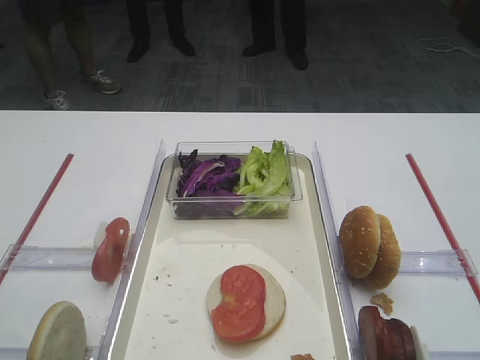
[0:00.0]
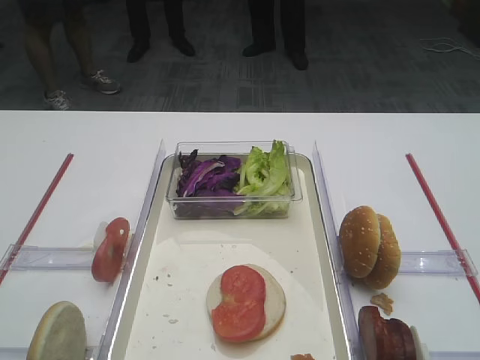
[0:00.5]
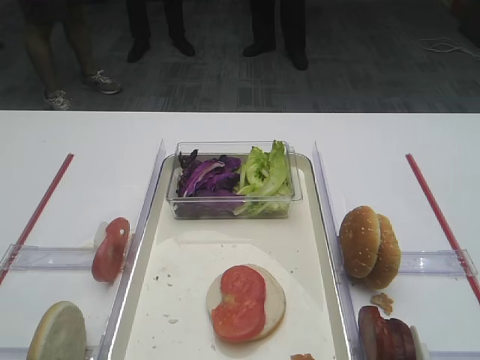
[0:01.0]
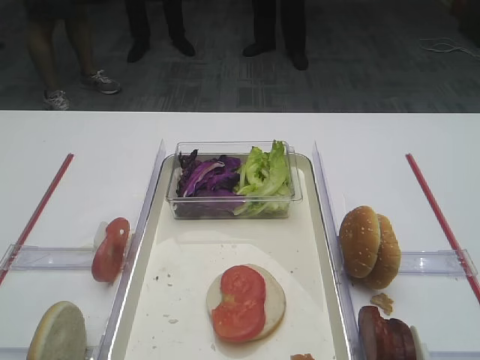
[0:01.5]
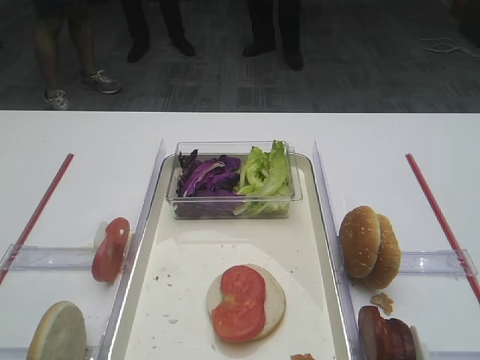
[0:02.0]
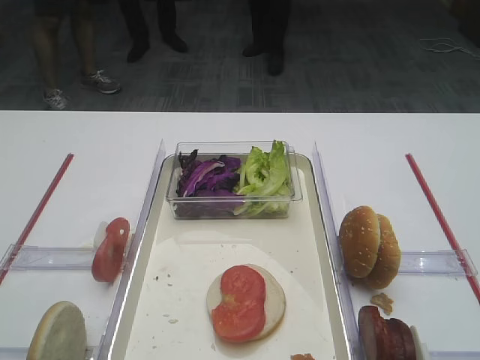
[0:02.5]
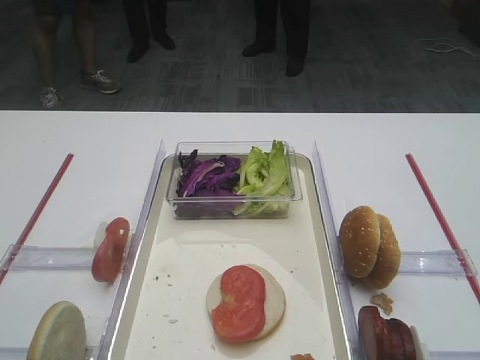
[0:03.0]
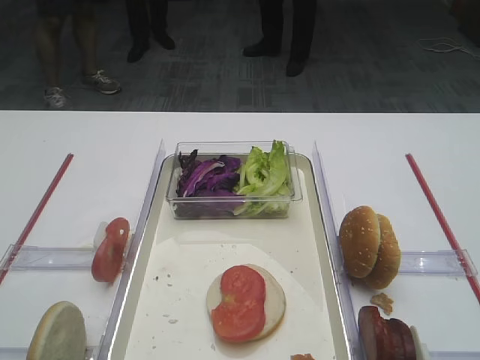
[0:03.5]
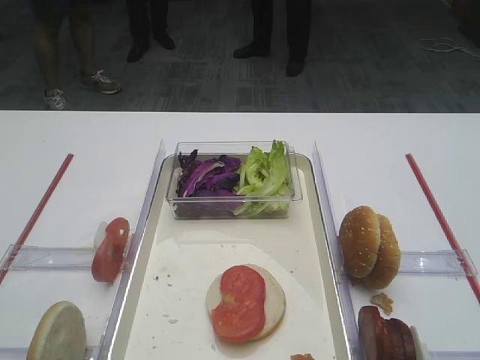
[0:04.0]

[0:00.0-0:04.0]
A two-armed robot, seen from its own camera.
0:02.0 to 0:04.0: The two grippers keep their place.

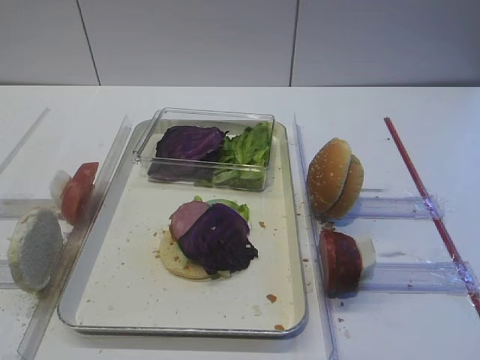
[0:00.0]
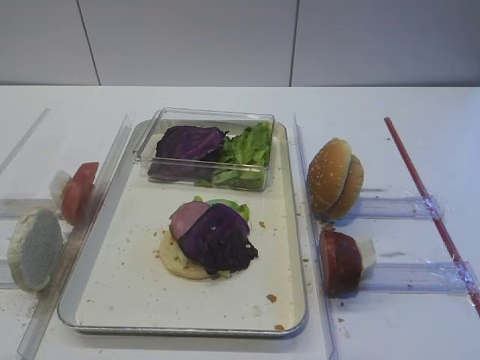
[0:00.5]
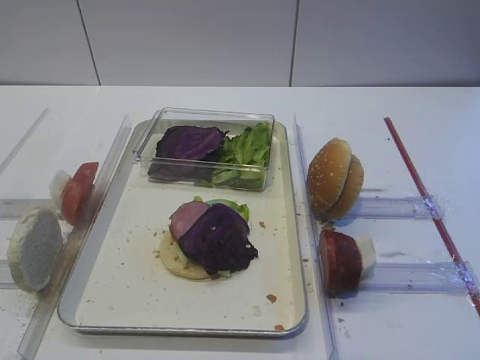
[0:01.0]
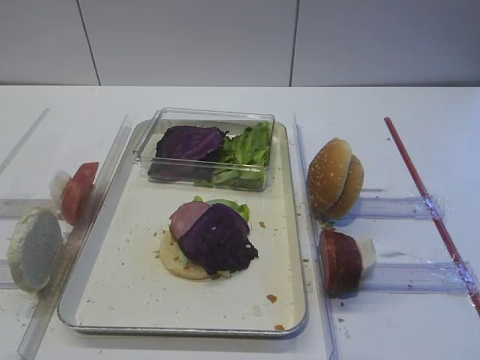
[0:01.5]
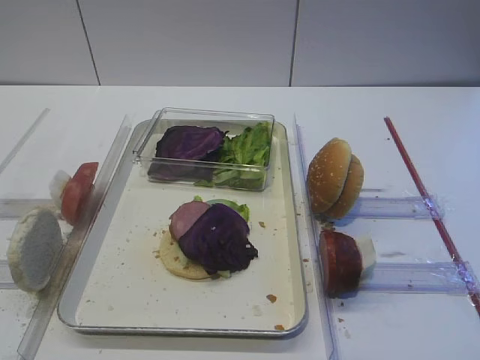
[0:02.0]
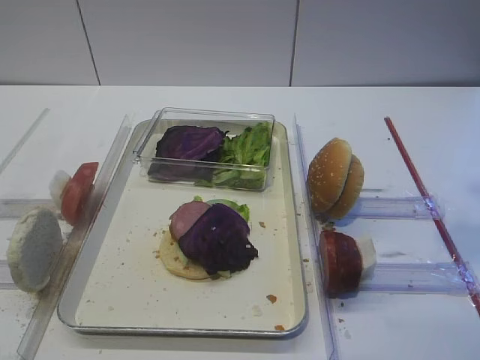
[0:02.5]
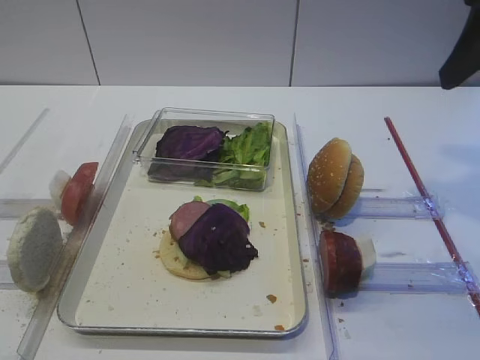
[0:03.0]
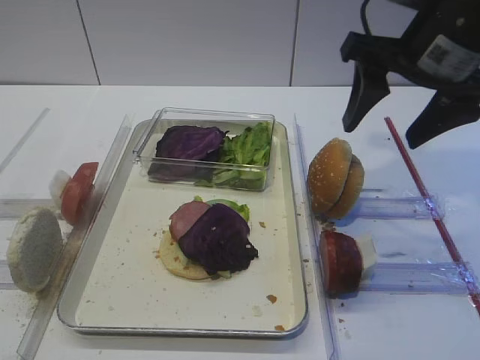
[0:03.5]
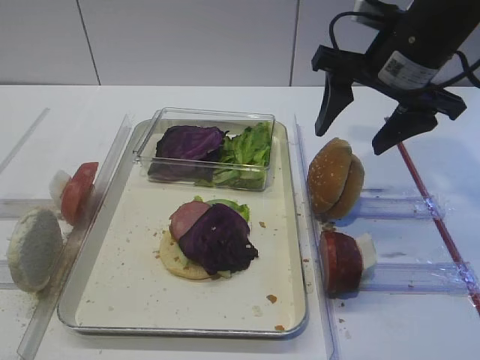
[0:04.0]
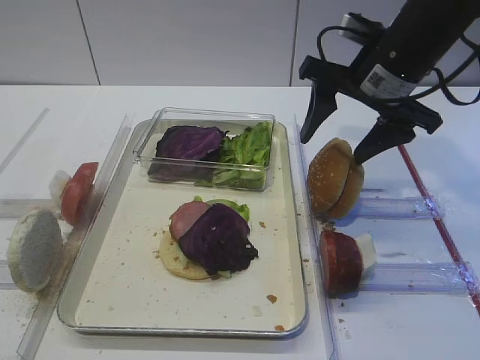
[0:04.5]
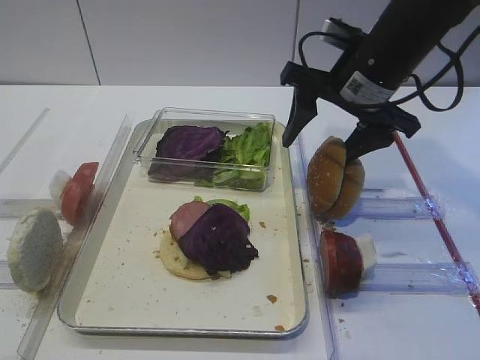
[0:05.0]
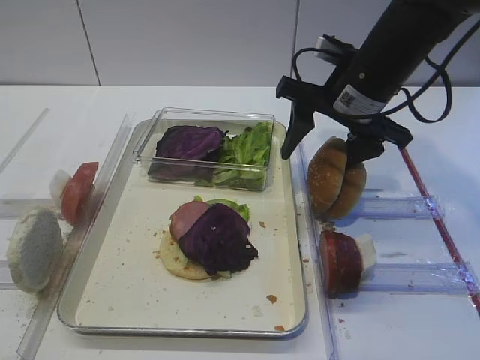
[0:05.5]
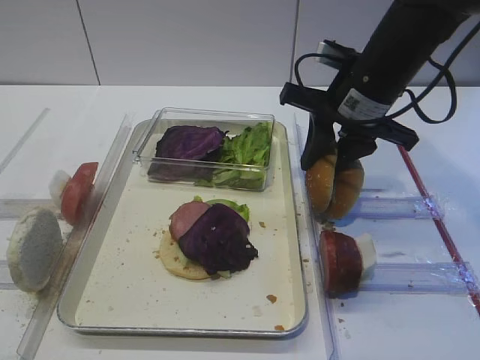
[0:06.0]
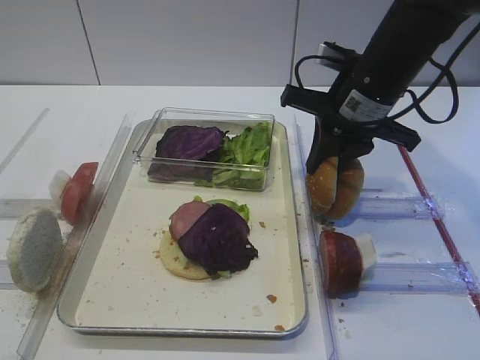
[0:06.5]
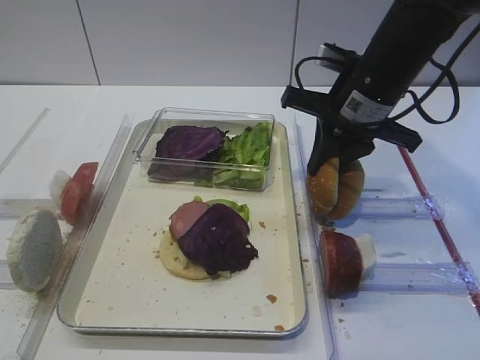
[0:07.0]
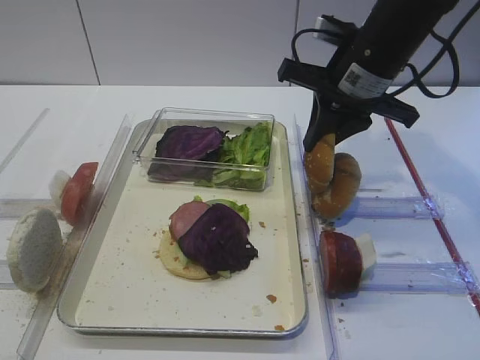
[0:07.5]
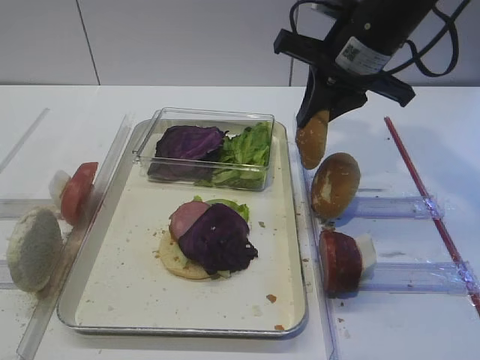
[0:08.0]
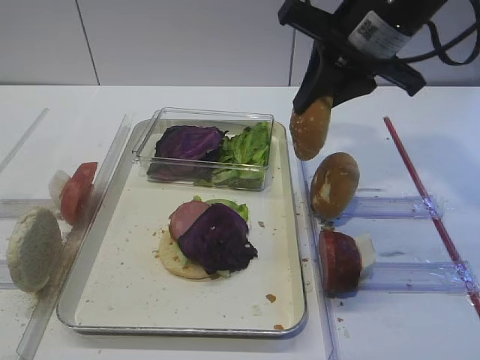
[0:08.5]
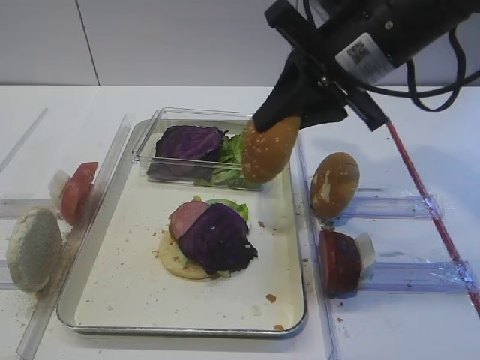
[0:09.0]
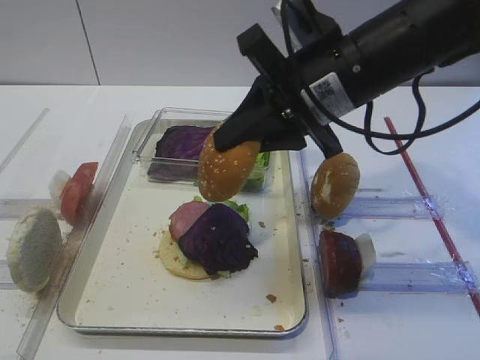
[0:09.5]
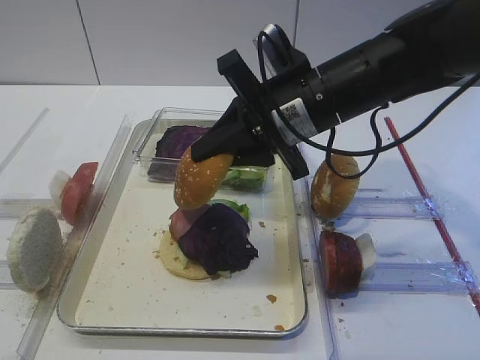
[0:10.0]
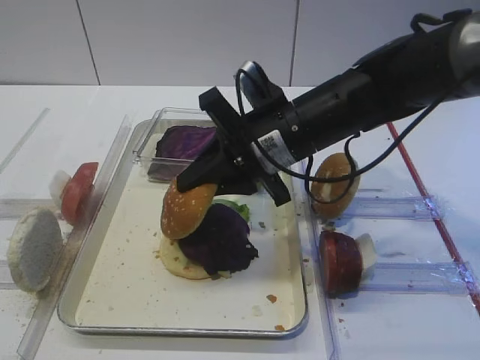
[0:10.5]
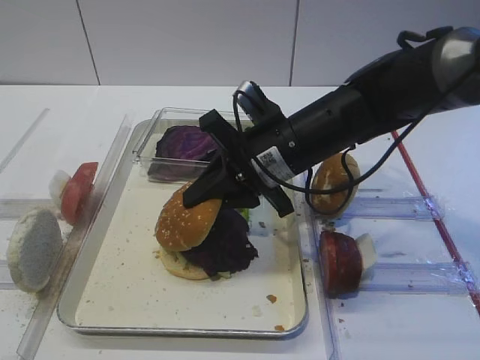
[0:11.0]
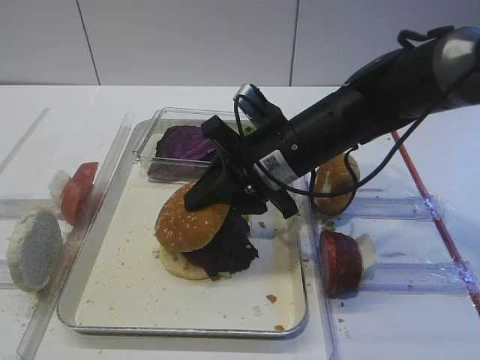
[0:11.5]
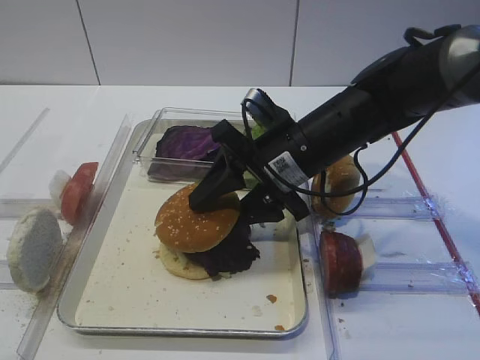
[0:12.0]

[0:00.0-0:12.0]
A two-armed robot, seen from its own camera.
Step, 0:00.0 to 0:07.5: Pick up the hamburger lid with the right gripper.
0:02.0 to 0:04.0: The right gripper is displaced forward by some 25 cm.
0:04.0 to 0:06.0: The right gripper moves roughly 5 cm, and closes its fingers.
0:06.0 to 0:08.0: The grippers move only a little.
0:08.0 to 0:10.0: The right gripper heads backward and to the left, covering roughly 10 cm.
0:10.0 to 0:12.0: The right gripper moves downward, approximately 5 cm, and opens its fingers.

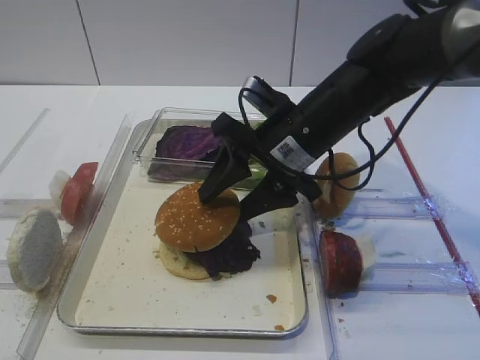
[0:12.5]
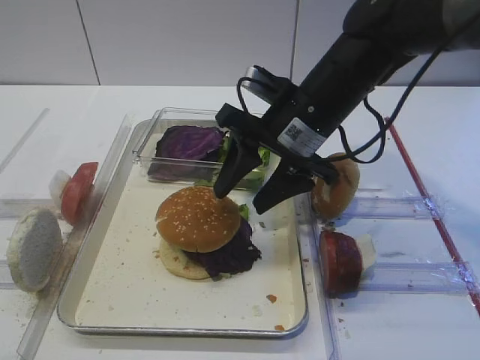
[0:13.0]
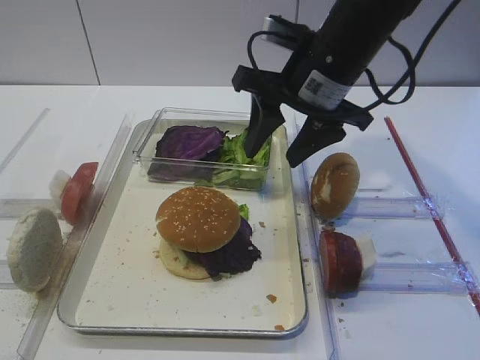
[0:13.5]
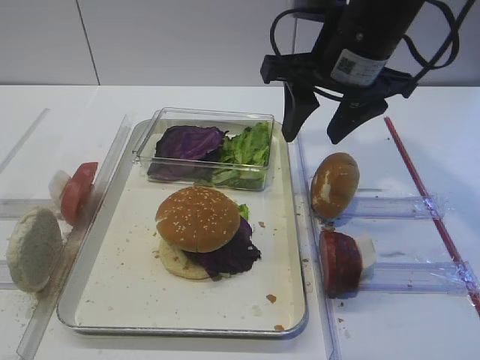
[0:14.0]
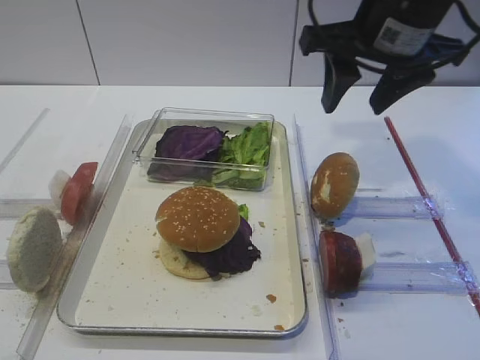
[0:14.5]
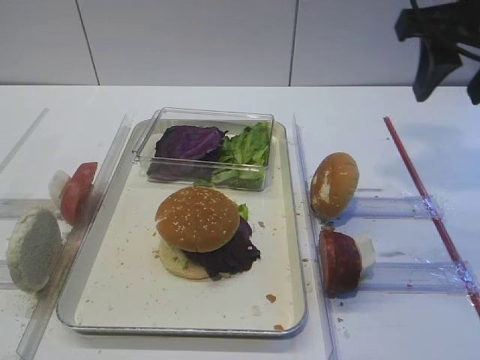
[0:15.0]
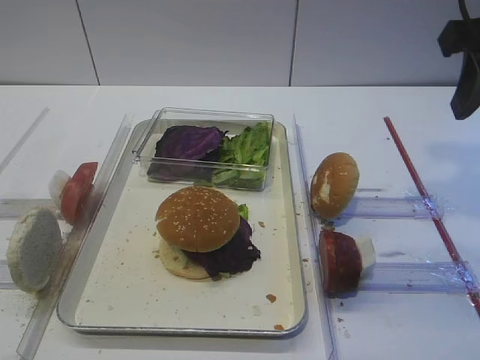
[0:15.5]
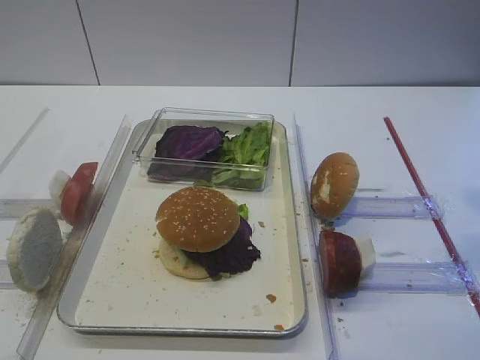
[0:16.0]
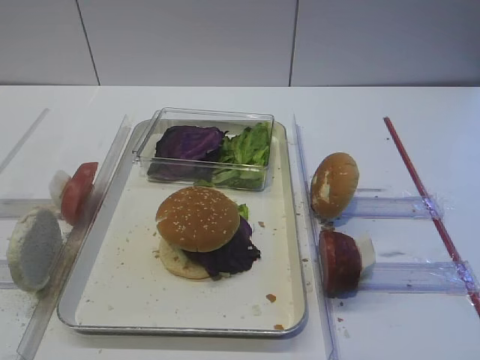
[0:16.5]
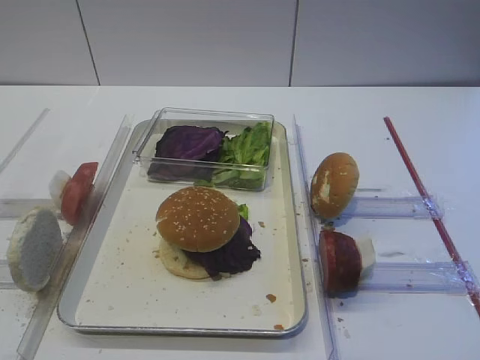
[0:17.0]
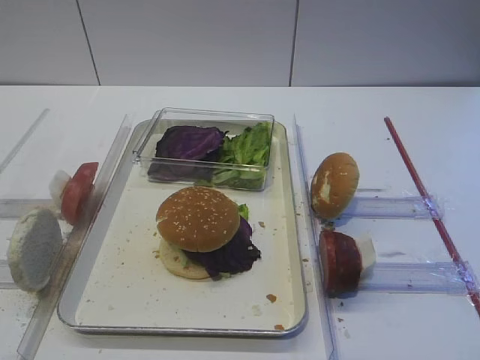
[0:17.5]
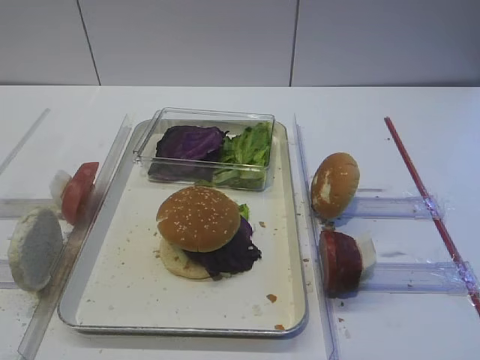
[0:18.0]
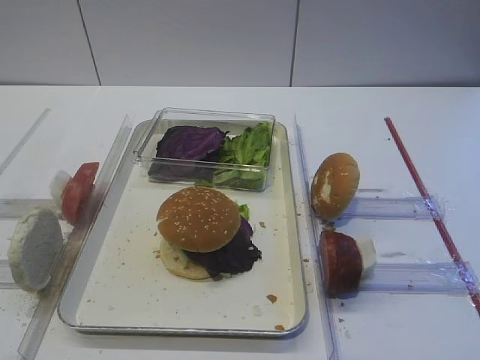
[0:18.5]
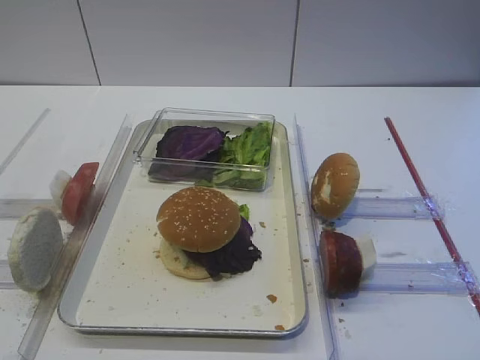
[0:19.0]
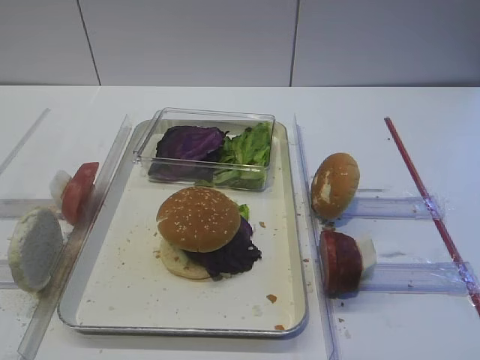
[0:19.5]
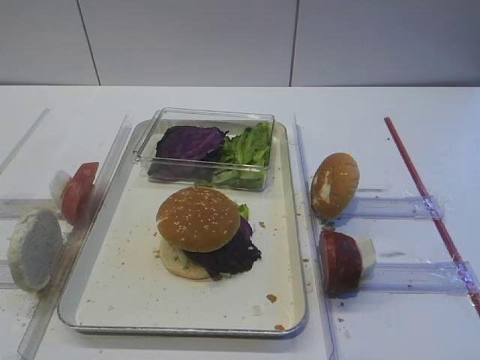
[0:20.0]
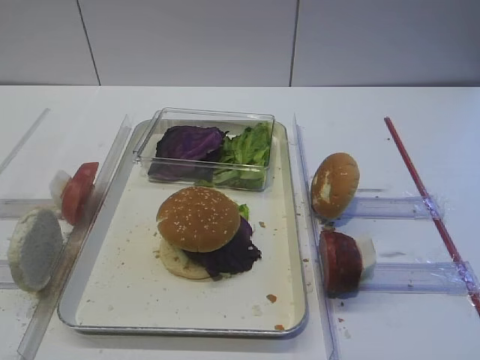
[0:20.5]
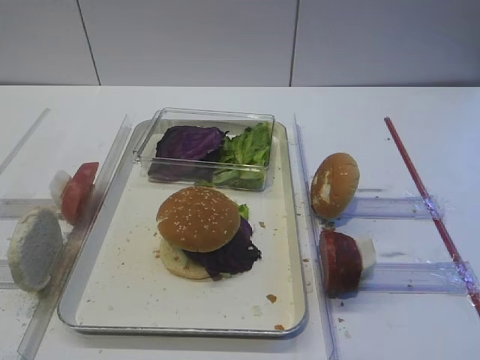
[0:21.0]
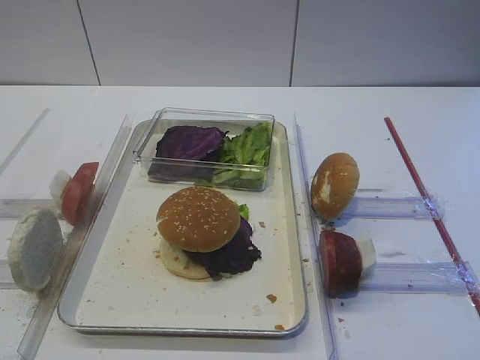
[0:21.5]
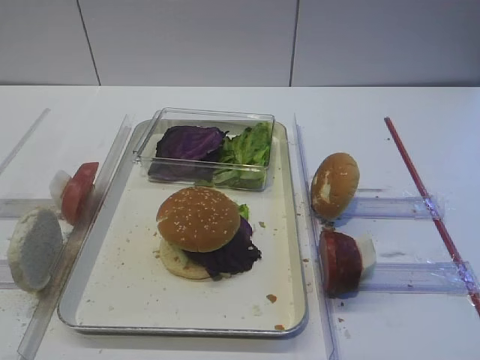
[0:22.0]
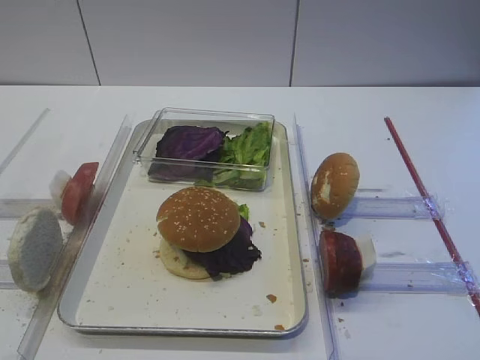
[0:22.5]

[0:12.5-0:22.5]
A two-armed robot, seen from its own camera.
0:12.5 to 0:14.5: The right gripper is displaced upward and to the right by approximately 15 cm.
0:14.5 to 0:16.5: The right gripper is displaced backward and to the right by about 25 cm.
0:18.5 to 0:20.5: Neither gripper changes place.
